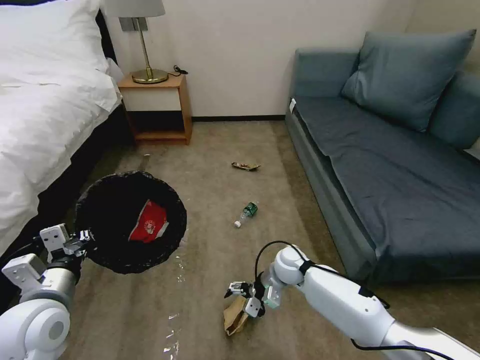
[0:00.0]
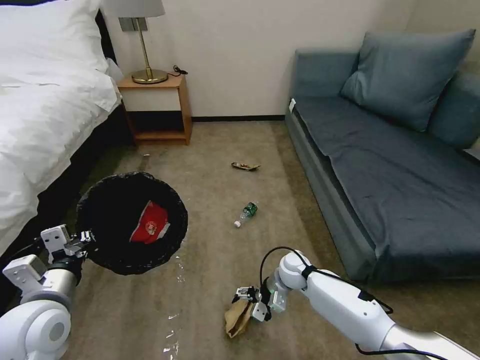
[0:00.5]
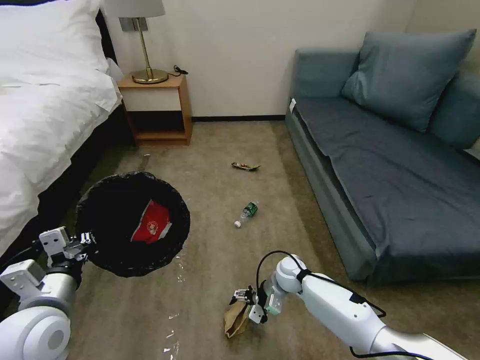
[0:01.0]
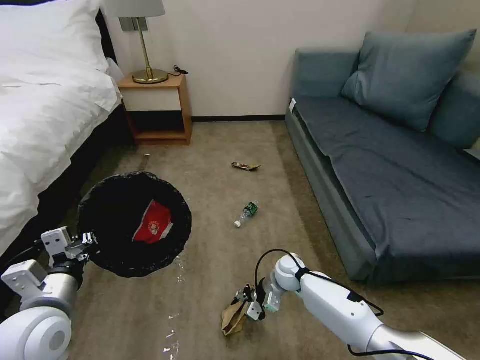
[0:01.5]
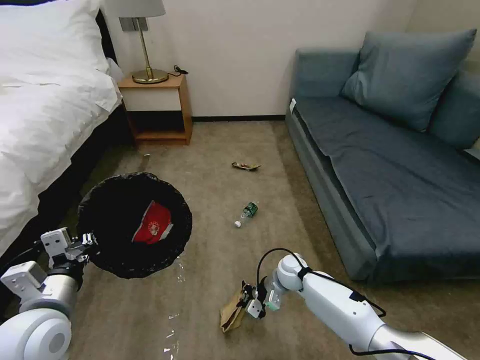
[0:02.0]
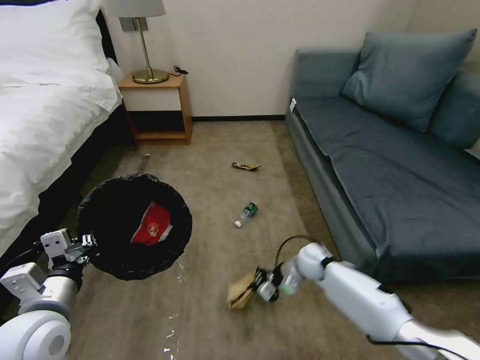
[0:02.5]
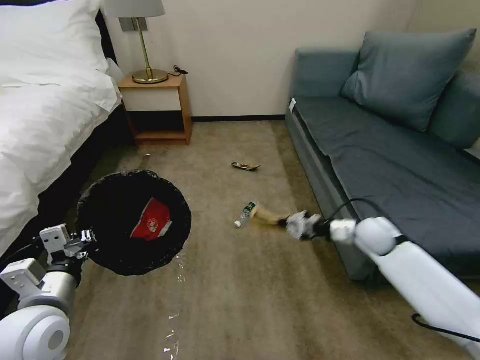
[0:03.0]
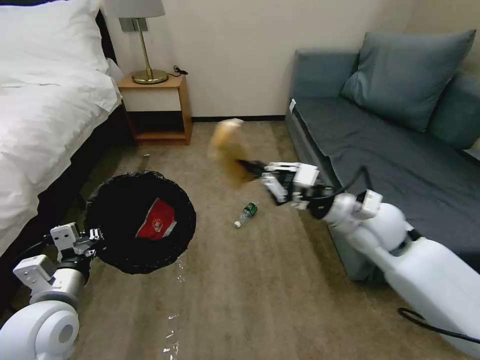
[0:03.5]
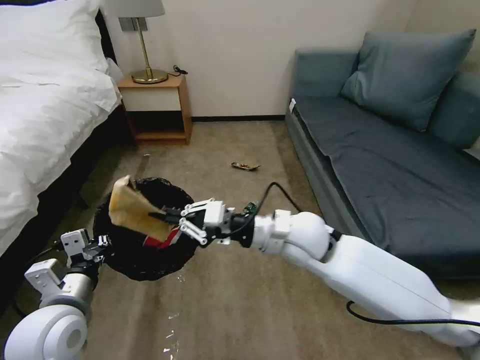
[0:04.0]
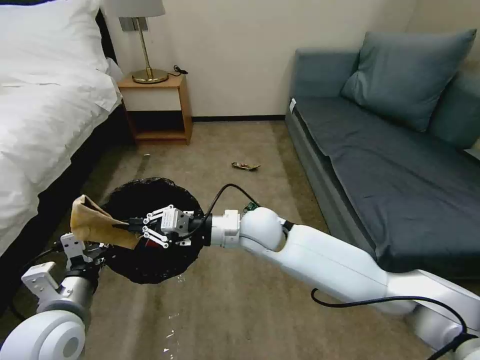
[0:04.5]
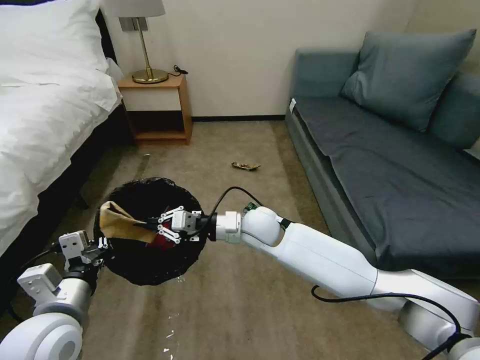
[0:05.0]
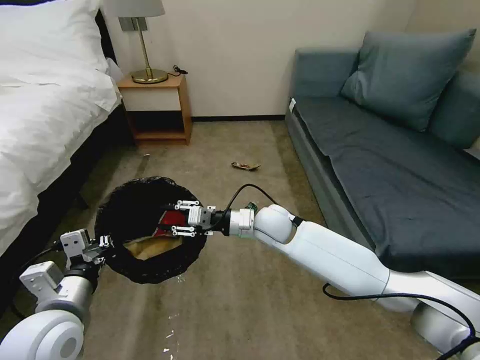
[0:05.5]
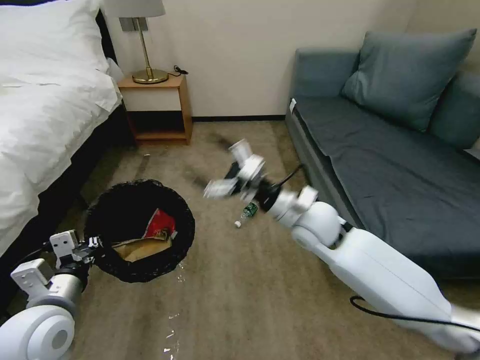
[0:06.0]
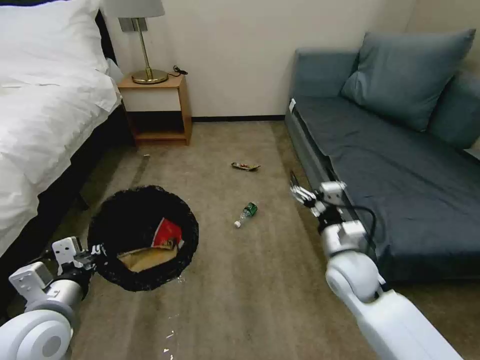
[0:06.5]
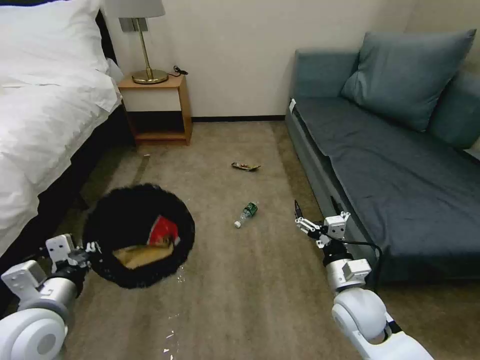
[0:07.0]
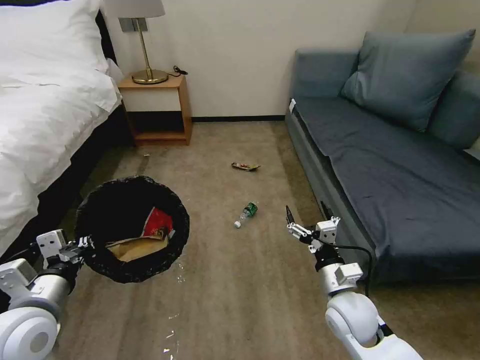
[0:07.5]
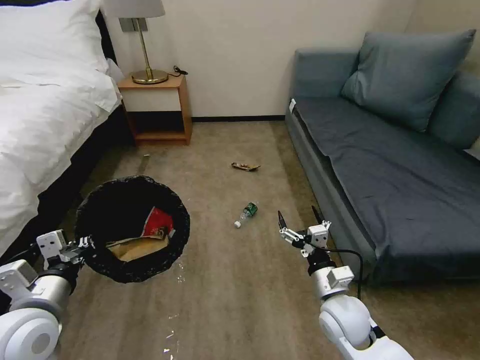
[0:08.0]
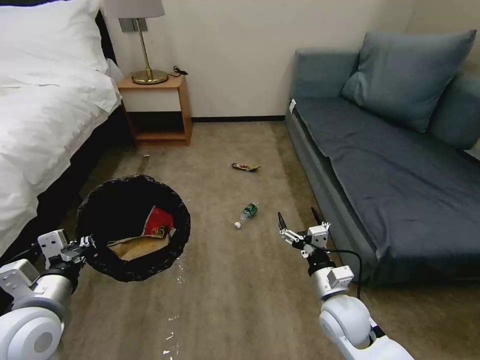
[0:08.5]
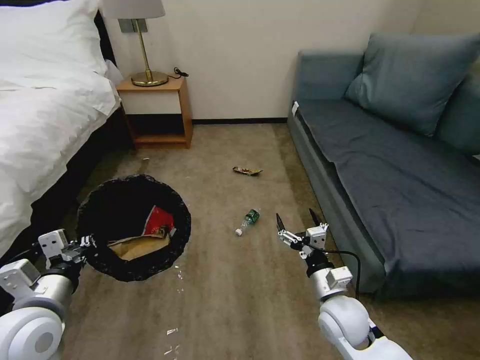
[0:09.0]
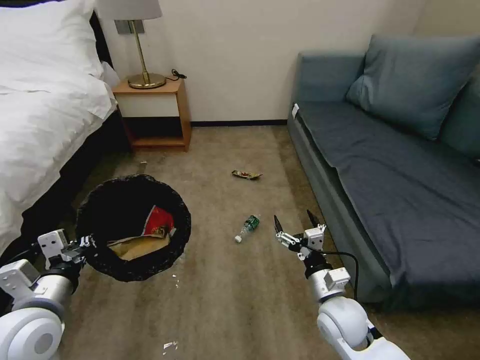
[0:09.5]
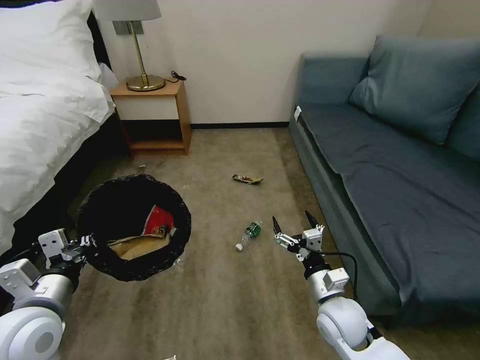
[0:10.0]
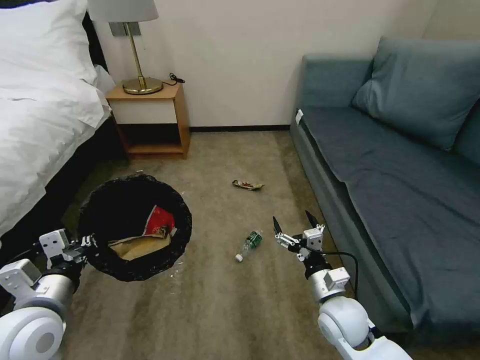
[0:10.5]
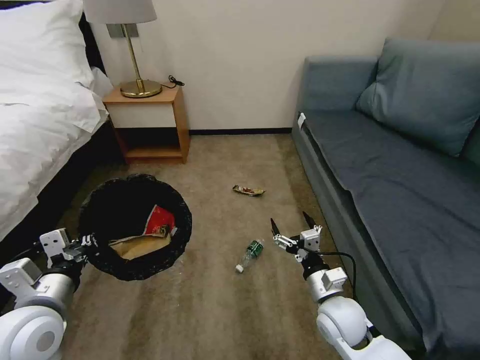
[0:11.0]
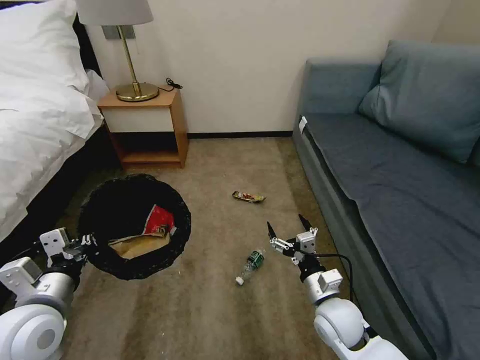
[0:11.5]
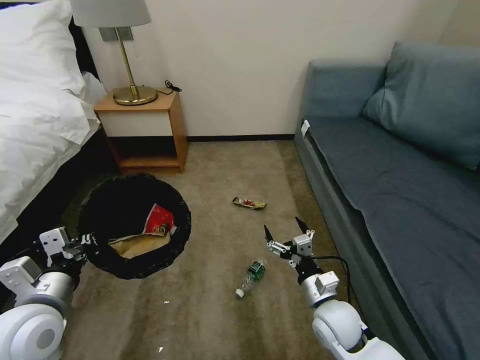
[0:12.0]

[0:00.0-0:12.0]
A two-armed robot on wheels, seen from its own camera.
Task of the whole recording: Pick up the trash bin, then pick up the garbage on the floor and place it into the trash bin.
0:00.0 to 0:02.0: The right gripper shifts approximately 5 cm downward, and closes up.
0:02.0 to 0:04.0: The right gripper moves upward, approximately 25 cm.
0:04.0 to 0:06.0: The right gripper goes to the left and returns, some 5 cm each way, and opens.
0:06.0 to 0:08.0: The right gripper shifts roughly 20 cm downward, backward and to the right.

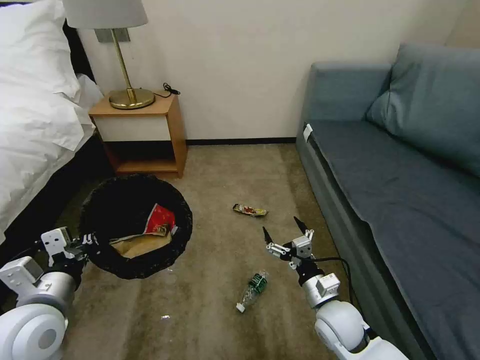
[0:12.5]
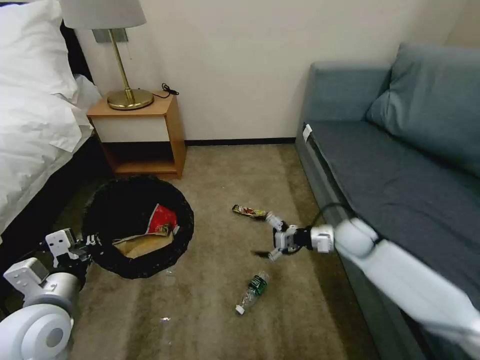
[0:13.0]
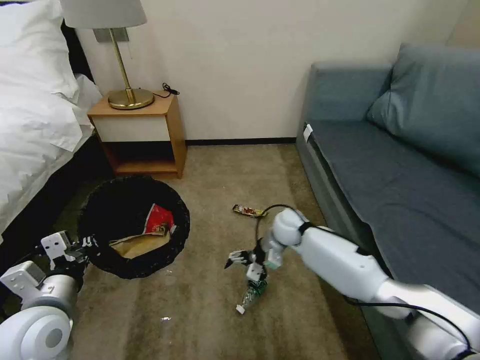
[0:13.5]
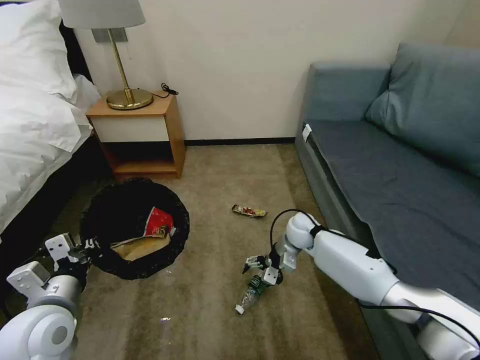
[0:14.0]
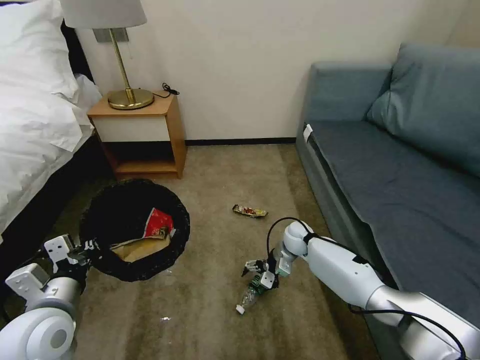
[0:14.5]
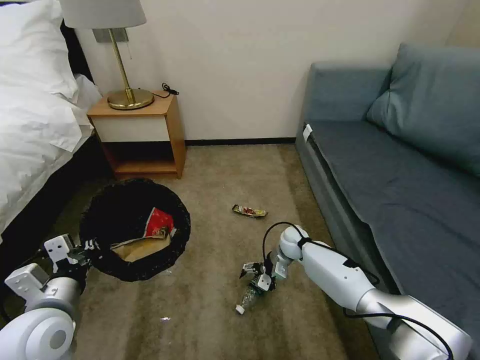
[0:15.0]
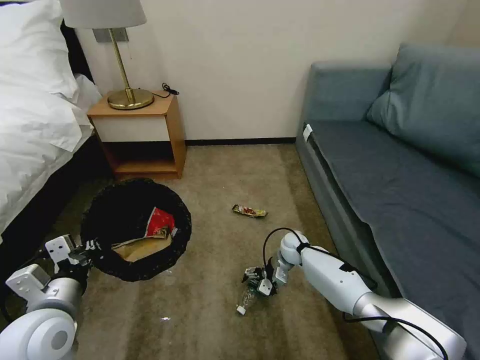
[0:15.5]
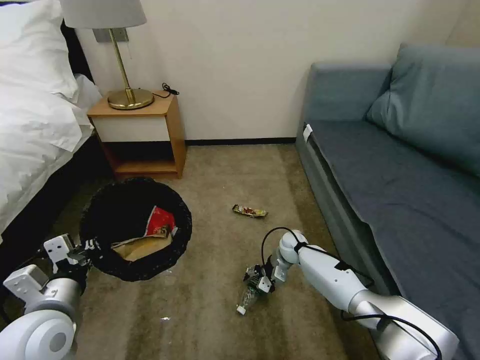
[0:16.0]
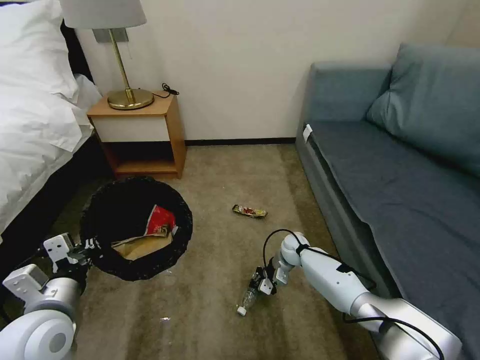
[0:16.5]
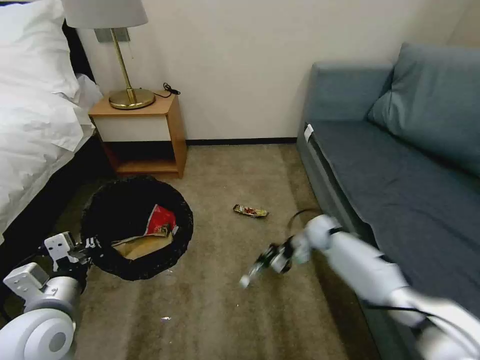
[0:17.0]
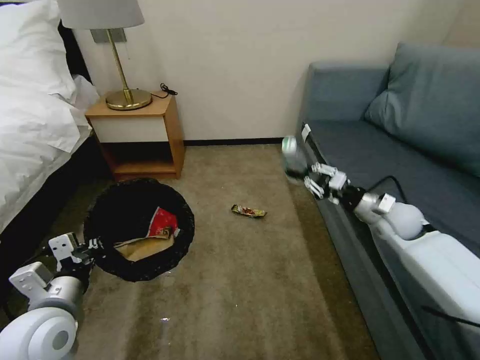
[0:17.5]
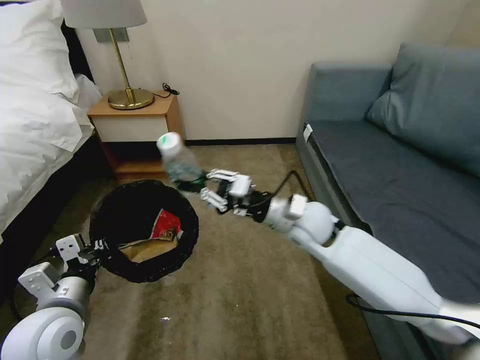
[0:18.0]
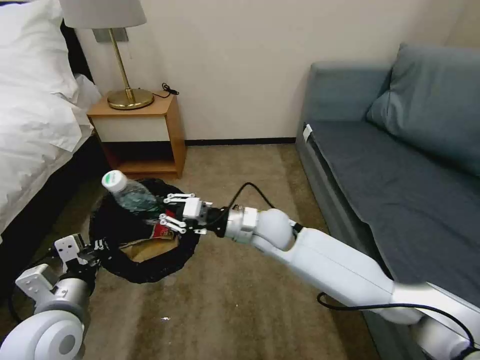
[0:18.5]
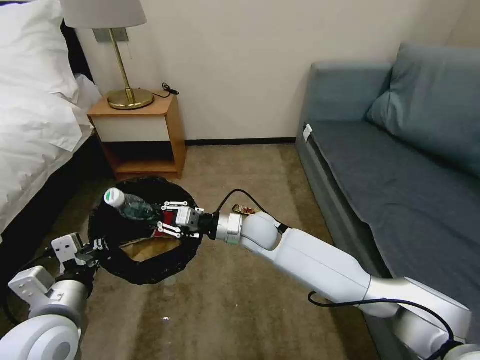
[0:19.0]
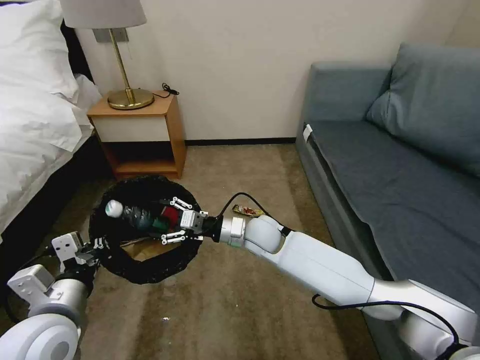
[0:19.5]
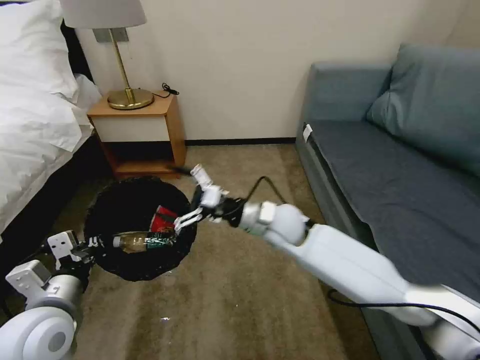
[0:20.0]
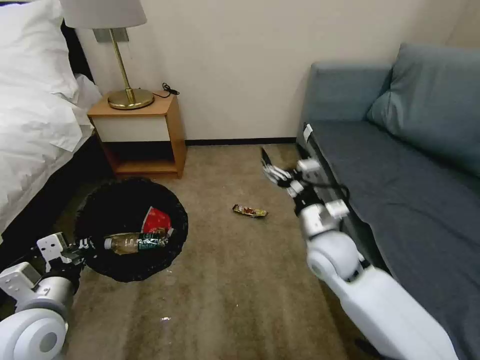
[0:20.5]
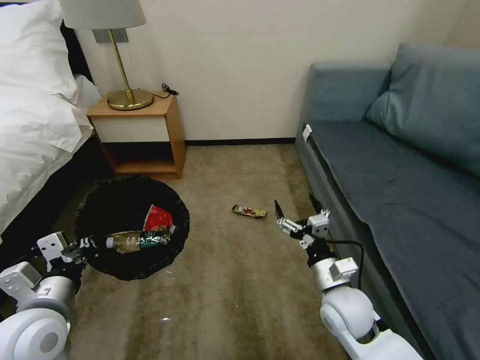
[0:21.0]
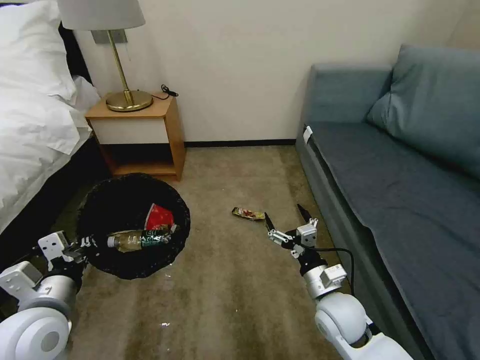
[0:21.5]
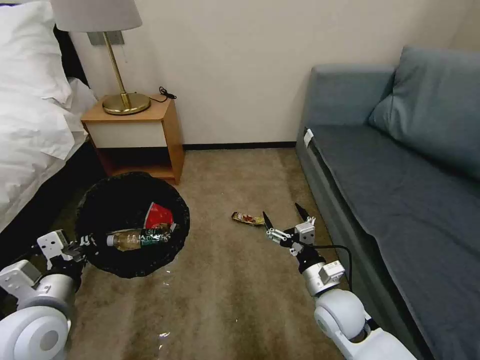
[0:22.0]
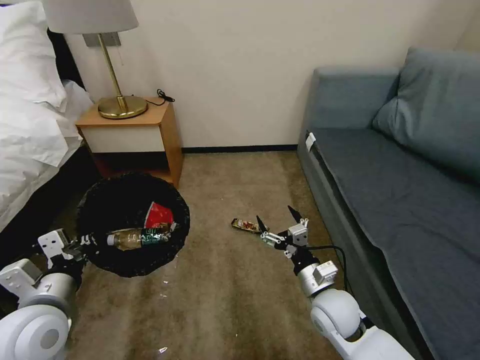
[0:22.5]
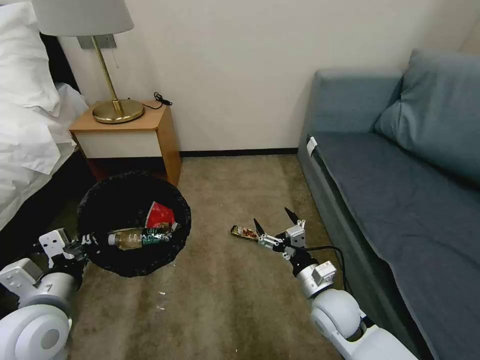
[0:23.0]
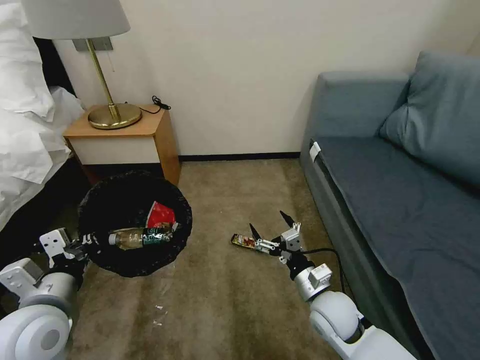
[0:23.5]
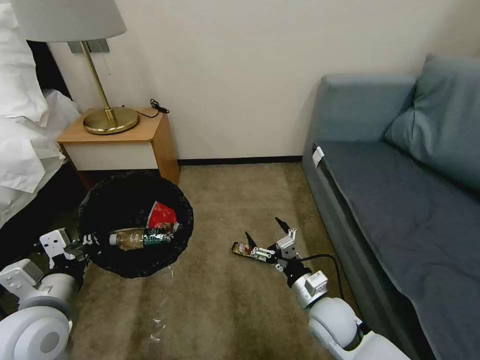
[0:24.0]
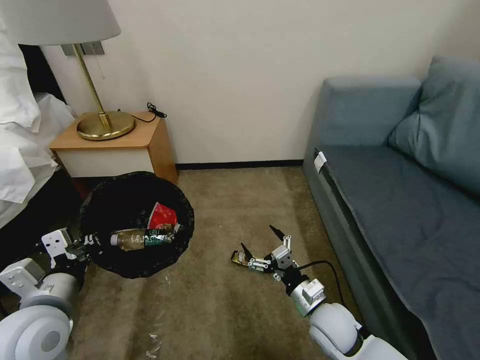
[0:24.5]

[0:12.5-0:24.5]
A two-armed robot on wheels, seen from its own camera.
Task of the whole recording: Pick up the trash bin, then pick up the garbage on the floor and place it into the trash bin.
0:12.5 to 0:14.5: The right gripper heads forward, covering approximately 25 cm.
0:14.5 to 0:16.5: The right gripper goes about 5 cm downward, and closes.
0:16.5 to 0:18.5: The right gripper travels upward and to the left by roughly 25 cm.
0:18.5 to 0:20.5: The right gripper moves to the right and backward, about 15 cm, and opens its fingers.
0:20.5 to 0:22.5: The right gripper heads downward and backward, covering roughly 15 cm.

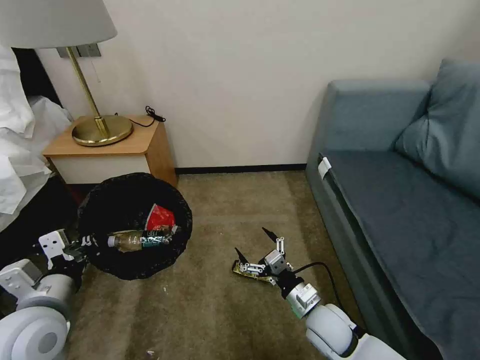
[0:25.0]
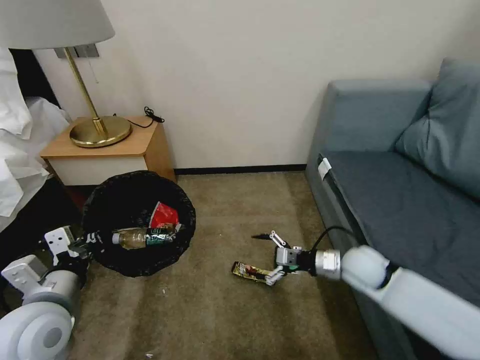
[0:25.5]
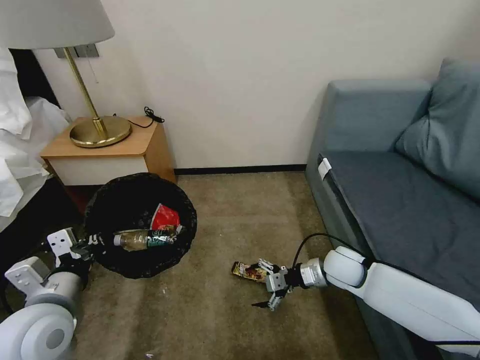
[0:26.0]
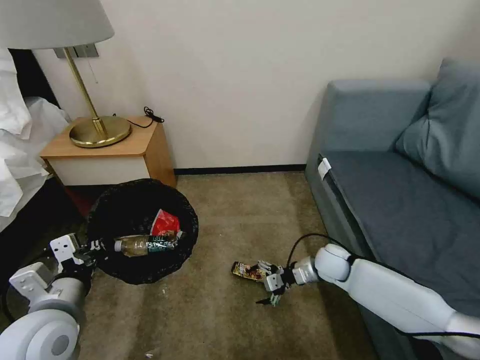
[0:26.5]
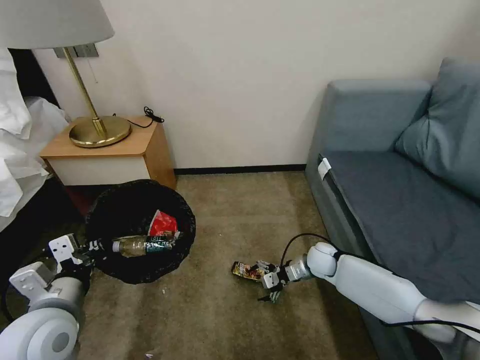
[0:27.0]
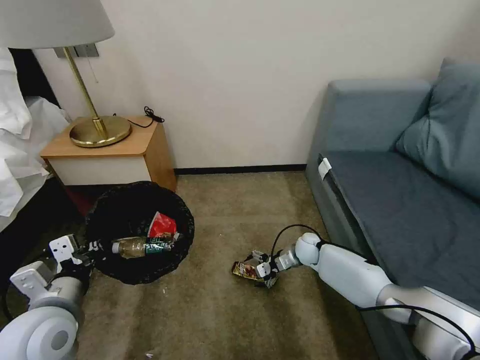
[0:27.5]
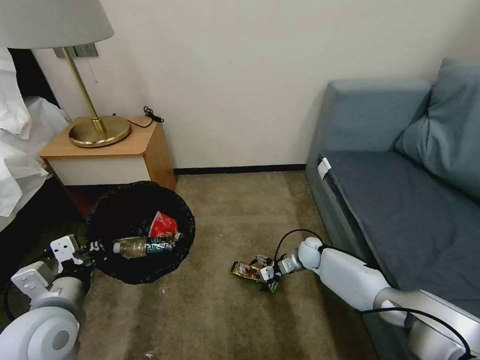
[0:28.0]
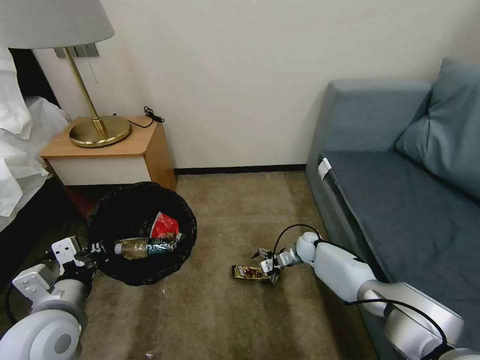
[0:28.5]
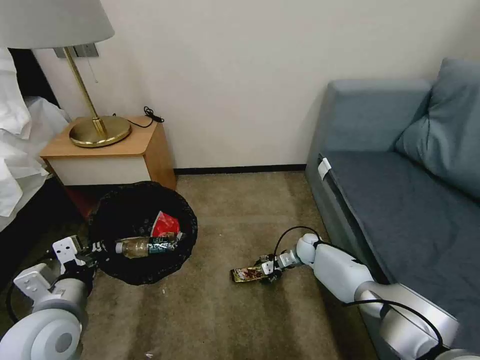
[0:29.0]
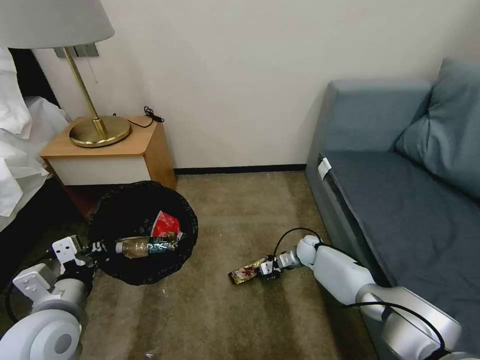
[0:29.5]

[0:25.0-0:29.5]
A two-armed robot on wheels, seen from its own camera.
Task of the whole recording: Pick up the trash bin, then pick up the garbage on the floor and place it into the trash bin.
0:25.0 to 0:27.0: The right gripper goes approximately 20 cm forward.
0:27.0 to 0:29.5: The right gripper goes about 10 cm forward and downward, and closes up.
